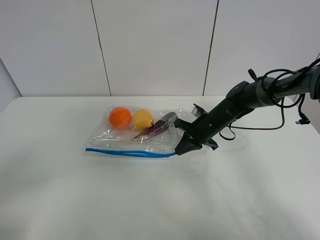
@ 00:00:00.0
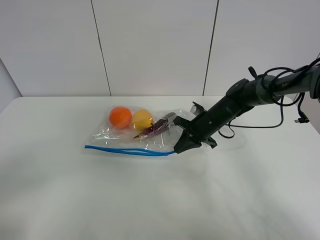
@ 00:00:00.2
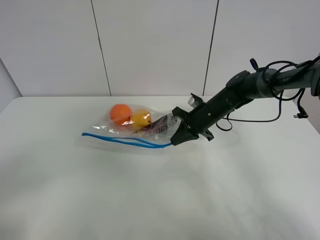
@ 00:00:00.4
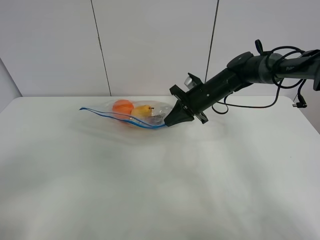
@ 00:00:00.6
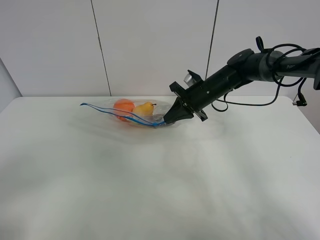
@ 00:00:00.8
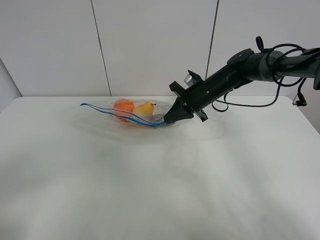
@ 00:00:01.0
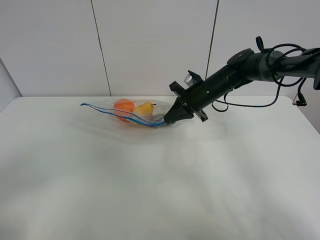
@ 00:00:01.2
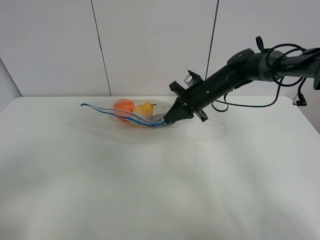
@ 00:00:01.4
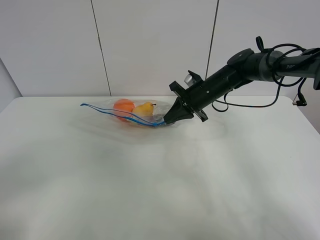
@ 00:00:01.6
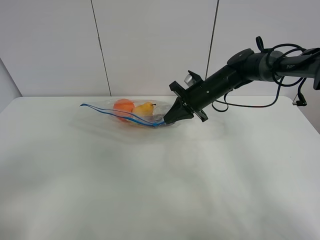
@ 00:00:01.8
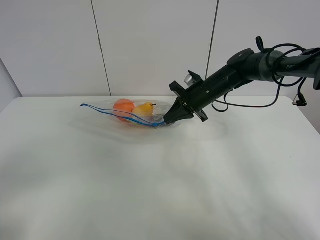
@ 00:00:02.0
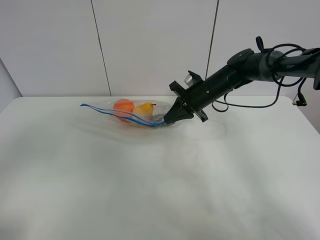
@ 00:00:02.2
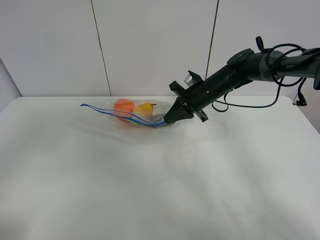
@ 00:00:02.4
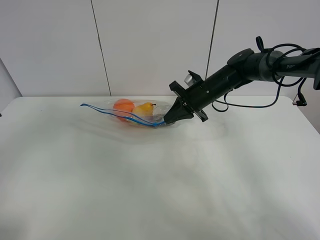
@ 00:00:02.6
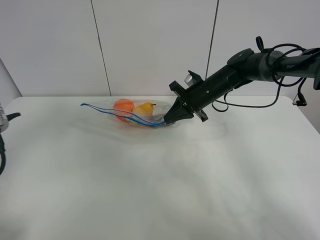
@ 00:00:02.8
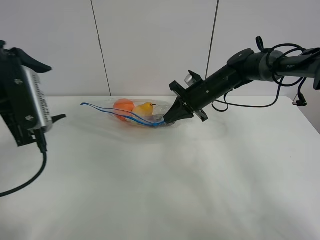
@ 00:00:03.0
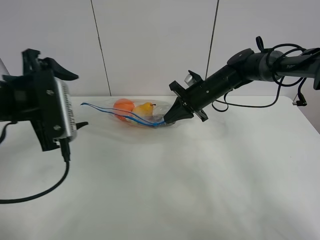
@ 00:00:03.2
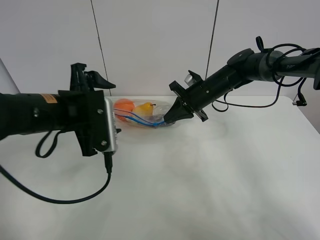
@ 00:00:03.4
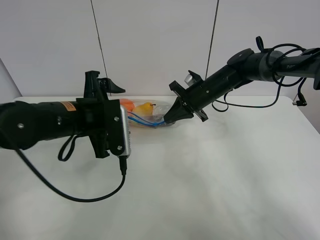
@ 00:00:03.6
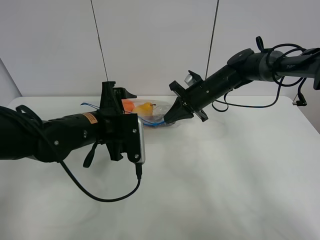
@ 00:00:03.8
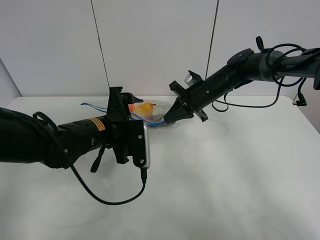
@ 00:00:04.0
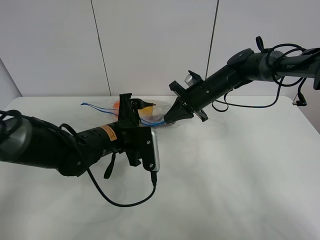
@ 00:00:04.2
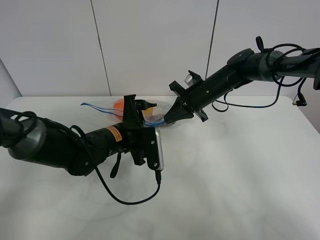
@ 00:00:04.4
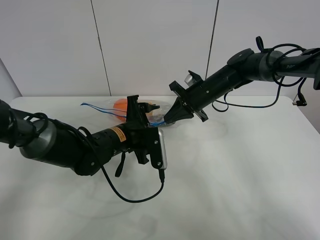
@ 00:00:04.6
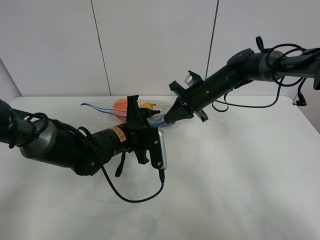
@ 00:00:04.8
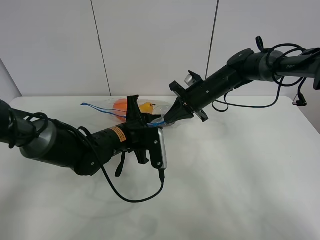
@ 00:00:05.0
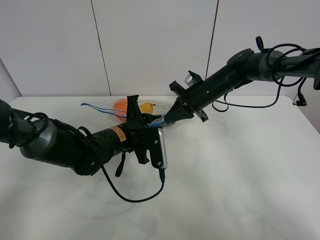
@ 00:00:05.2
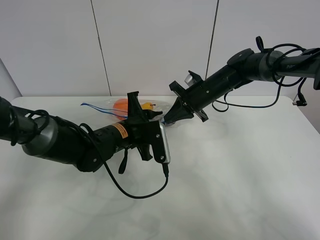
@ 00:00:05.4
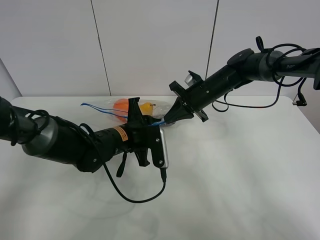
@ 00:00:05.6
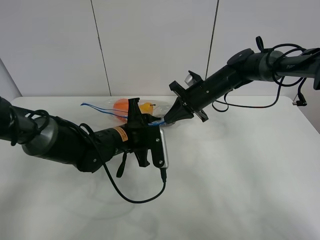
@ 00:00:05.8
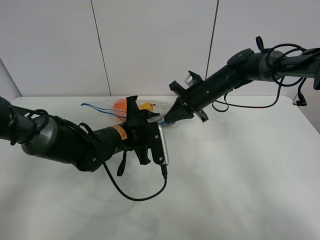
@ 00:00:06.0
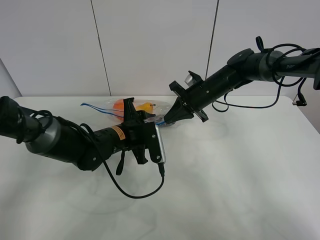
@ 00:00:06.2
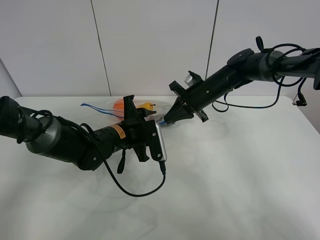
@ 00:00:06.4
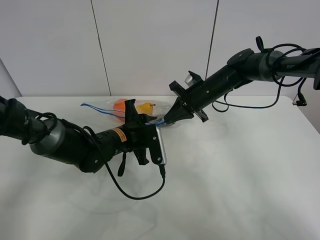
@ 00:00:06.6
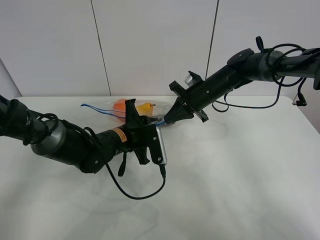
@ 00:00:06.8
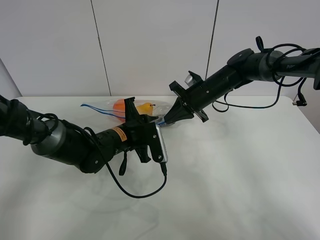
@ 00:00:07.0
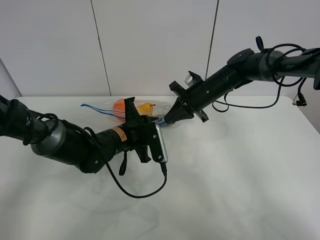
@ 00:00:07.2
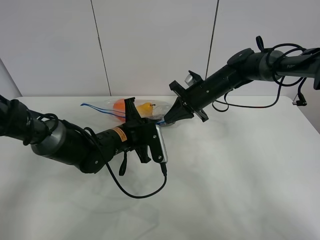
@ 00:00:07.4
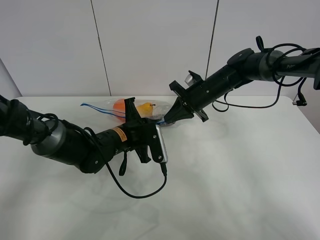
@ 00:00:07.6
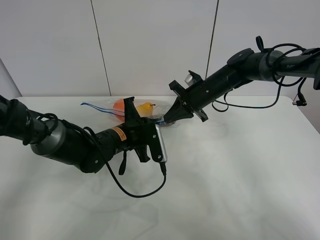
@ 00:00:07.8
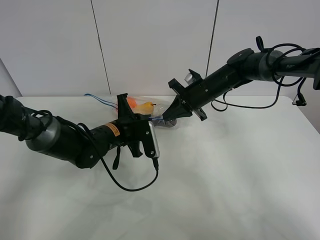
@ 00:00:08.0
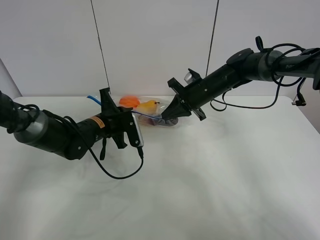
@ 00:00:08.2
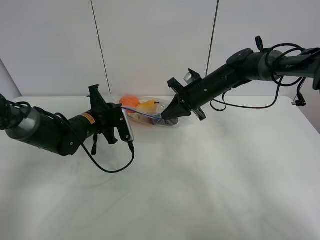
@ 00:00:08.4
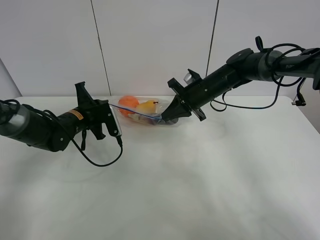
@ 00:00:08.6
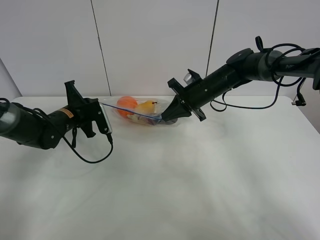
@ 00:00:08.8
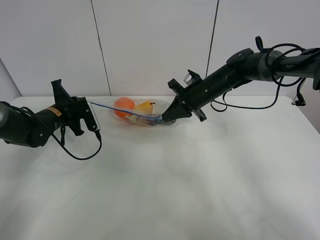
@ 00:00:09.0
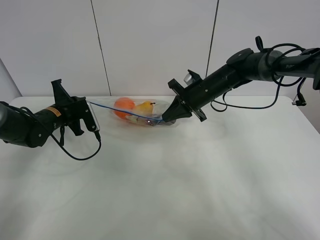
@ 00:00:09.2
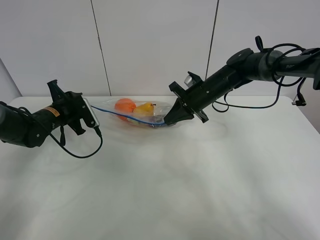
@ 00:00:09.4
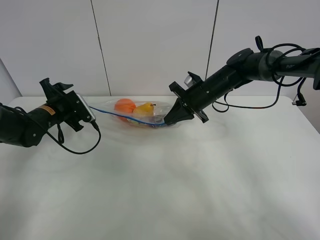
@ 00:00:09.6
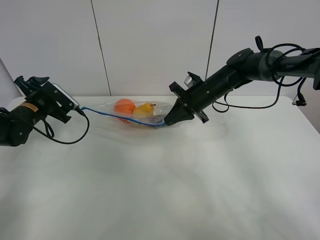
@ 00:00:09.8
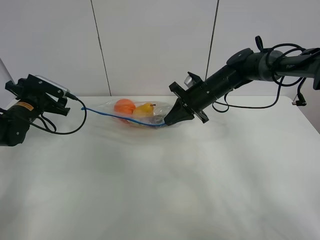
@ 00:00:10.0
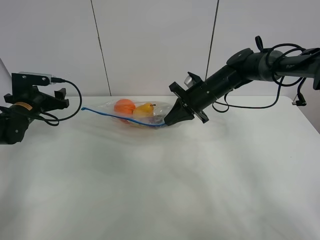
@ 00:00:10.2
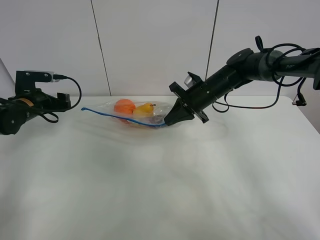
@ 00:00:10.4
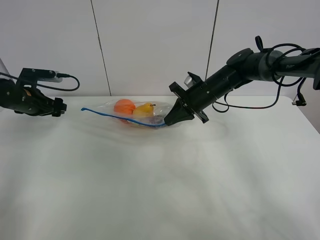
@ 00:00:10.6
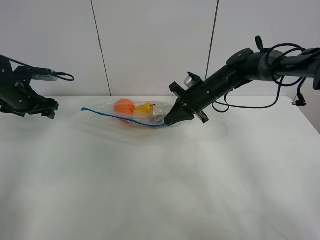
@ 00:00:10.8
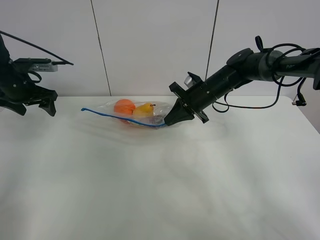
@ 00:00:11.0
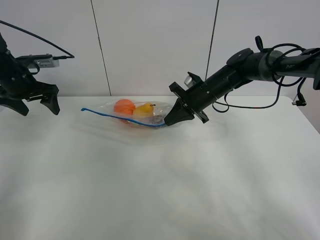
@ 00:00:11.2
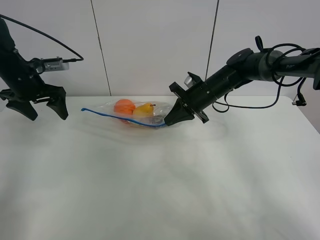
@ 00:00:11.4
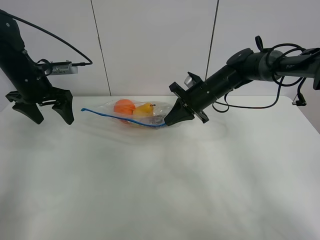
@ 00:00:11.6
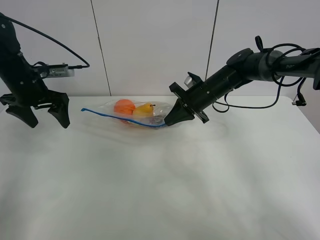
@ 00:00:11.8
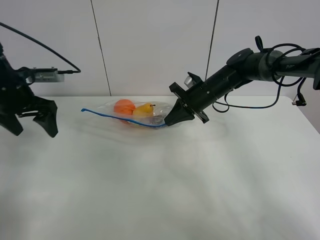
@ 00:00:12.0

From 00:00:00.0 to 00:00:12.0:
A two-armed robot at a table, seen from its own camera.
Step, from 00:00:00.0 to 00:00:01.4: Lift the fruit bag with your right gripper.
Step, from 00:00:01.6 to 00:00:09.4: Pull the fruit bag with left gripper.
From 00:00:00.0 to 00:00:01.6: The right gripper goes some 10 cm upward.
From 00:00:01.6 to 00:00:03.0: The left gripper shifts some 25 cm forward.
From 00:00:03.0 to 00:00:04.4: The left gripper moves downward, to the right and forward, approximately 25 cm.
From 00:00:04.4 to 00:00:06.0: The left gripper closes up.
From 00:00:06.0 to 00:00:07.6: The left gripper closes its fingers.
From 00:00:07.6 to 00:00:09.0: The left gripper travels to the left by roughly 20 cm.
From 00:00:09.0 to 00:00:10.4: The left gripper heads to the left, covering some 5 cm, and opens its fingers.
From 00:00:10.4 to 00:00:12.0: The left gripper is displaced upward and backward by about 15 cm.

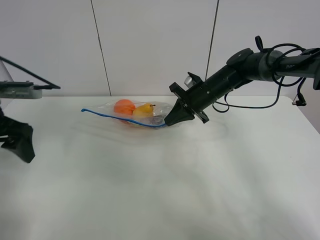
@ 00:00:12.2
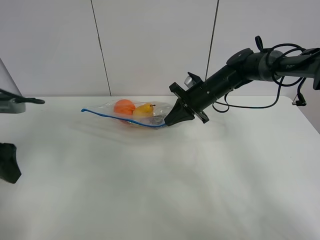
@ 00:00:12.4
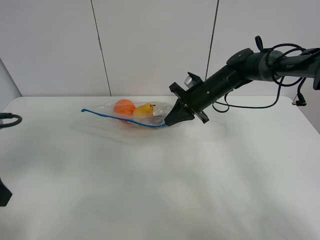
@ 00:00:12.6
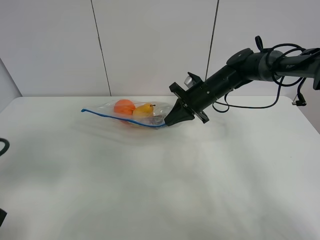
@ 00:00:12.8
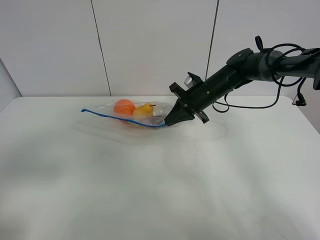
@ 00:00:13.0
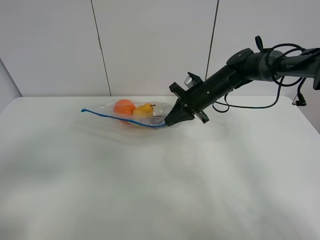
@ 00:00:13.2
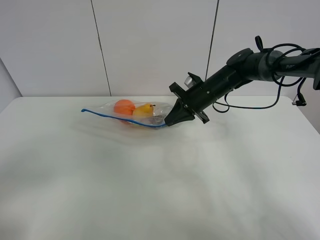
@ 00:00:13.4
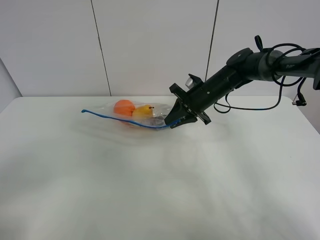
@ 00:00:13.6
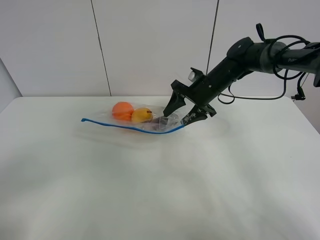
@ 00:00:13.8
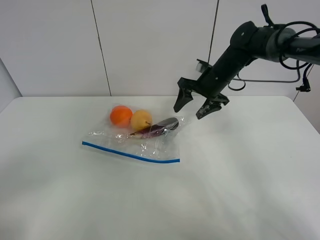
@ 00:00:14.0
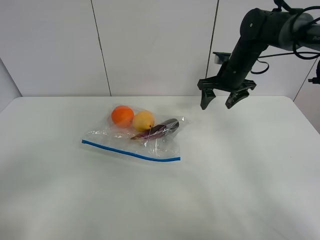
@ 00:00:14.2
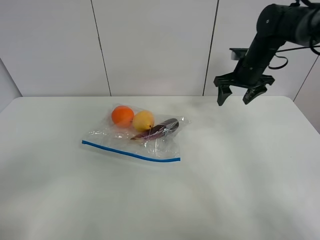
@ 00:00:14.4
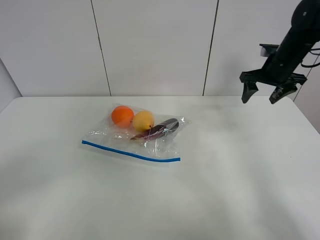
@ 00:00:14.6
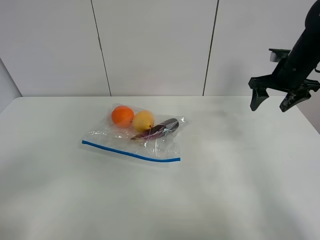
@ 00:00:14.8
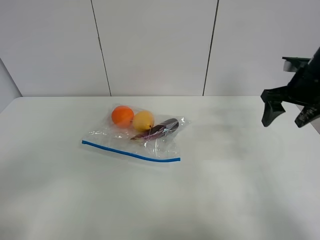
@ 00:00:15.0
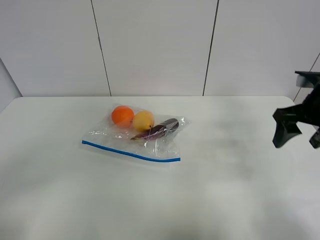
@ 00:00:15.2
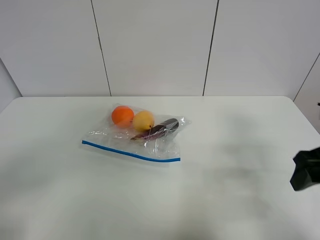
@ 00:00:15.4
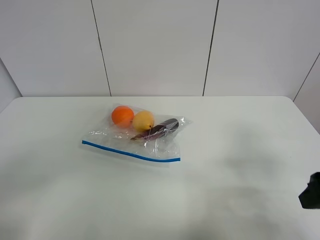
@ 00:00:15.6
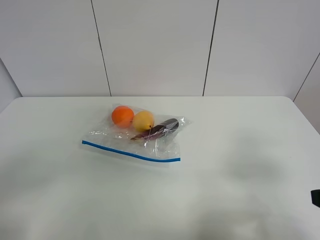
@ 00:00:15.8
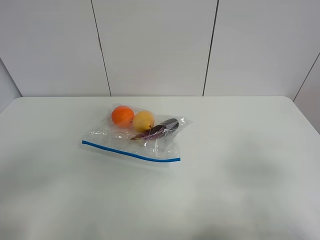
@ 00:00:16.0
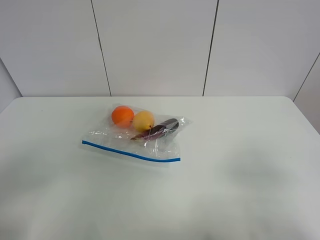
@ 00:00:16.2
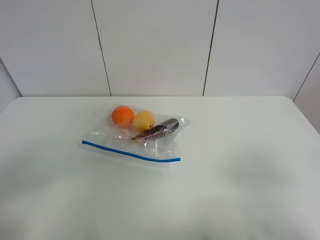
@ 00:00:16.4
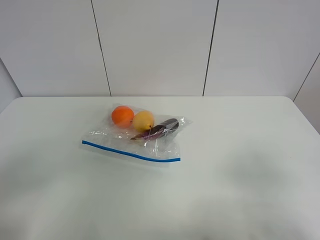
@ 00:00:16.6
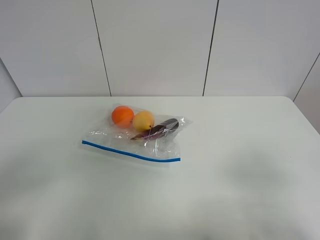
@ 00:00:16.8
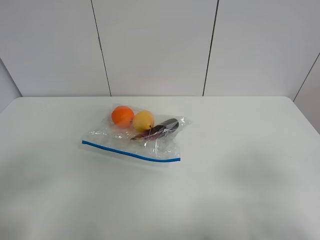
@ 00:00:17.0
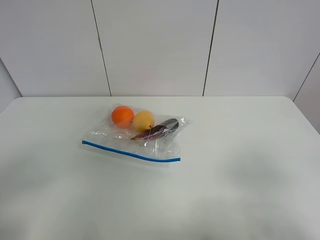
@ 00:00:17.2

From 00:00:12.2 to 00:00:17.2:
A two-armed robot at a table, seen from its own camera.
From 00:00:12.2 to 00:00:13.8: The left gripper moves backward, about 25 cm. Meanwhile the right gripper opens up.
From 00:00:13.8 to 00:00:15.6: The right gripper travels backward and to the right by some 35 cm.
From 00:00:15.6 to 00:00:17.2: The right gripper travels backward by approximately 10 cm.
